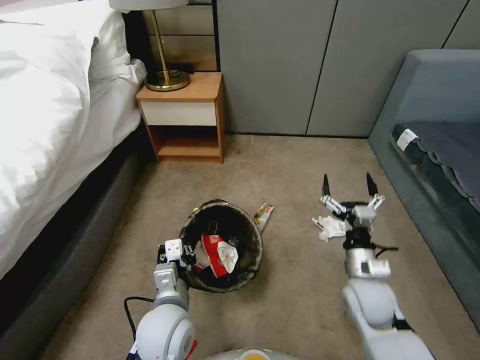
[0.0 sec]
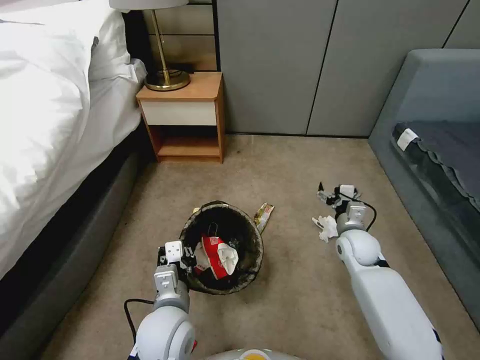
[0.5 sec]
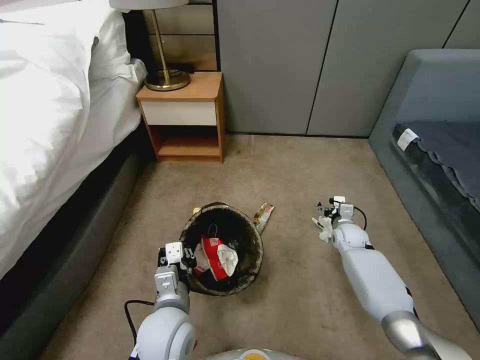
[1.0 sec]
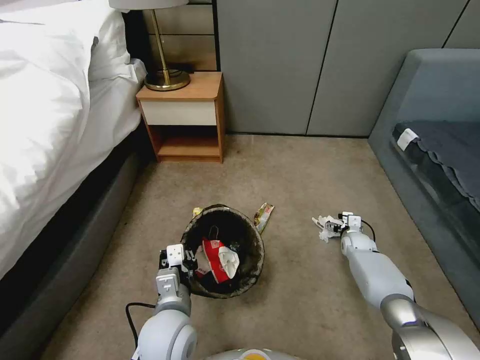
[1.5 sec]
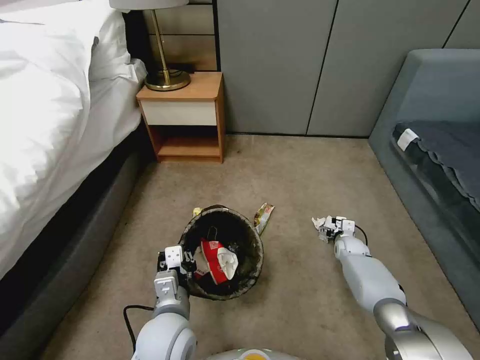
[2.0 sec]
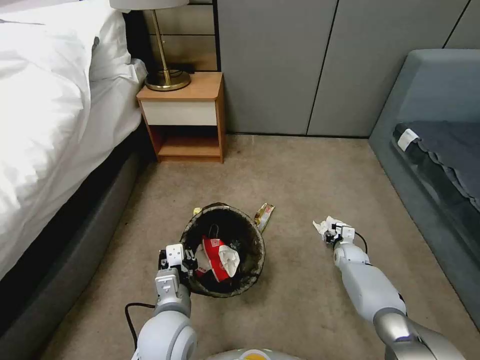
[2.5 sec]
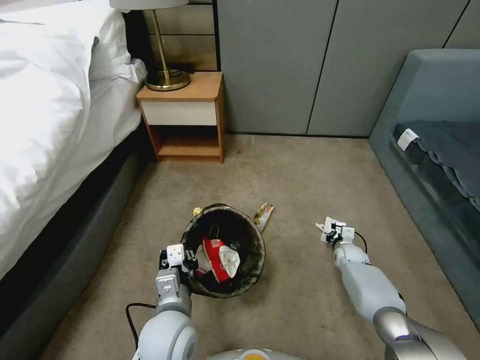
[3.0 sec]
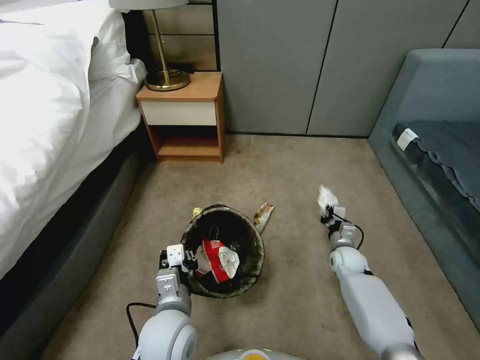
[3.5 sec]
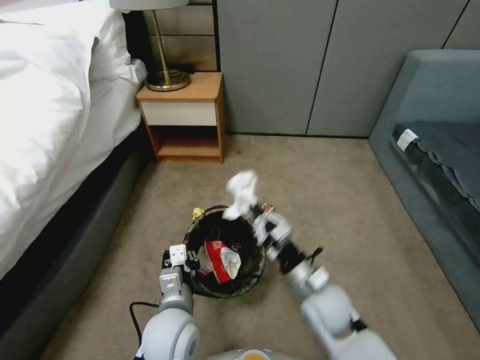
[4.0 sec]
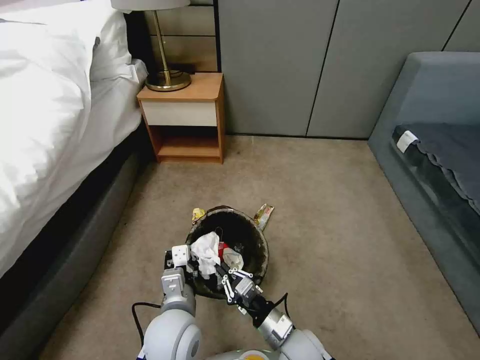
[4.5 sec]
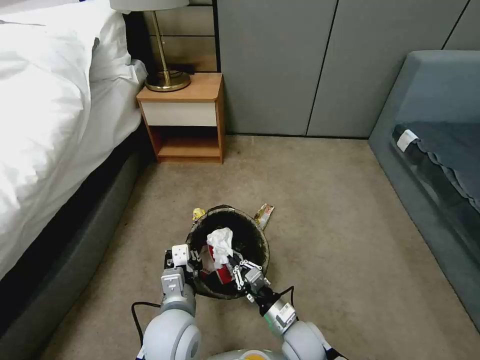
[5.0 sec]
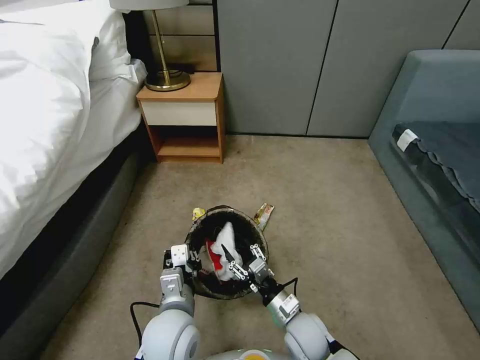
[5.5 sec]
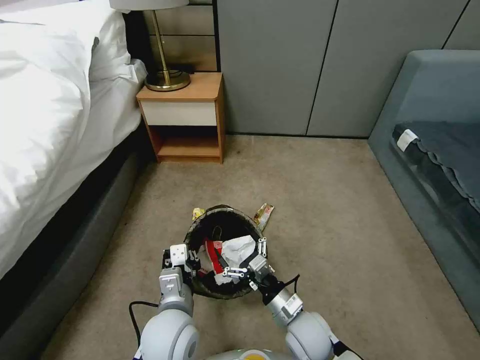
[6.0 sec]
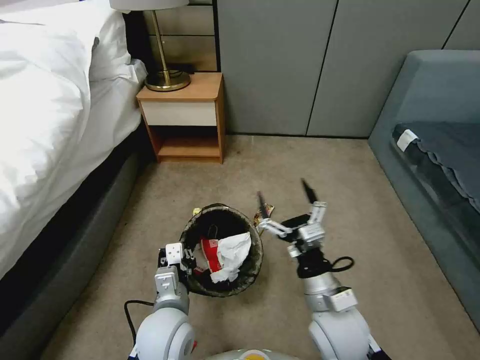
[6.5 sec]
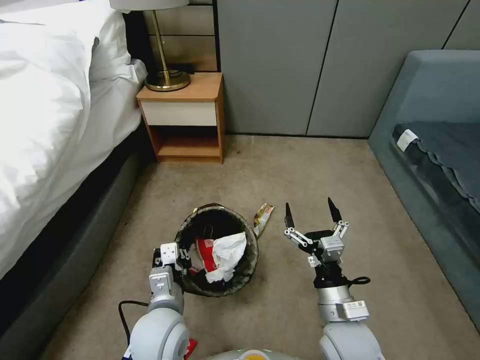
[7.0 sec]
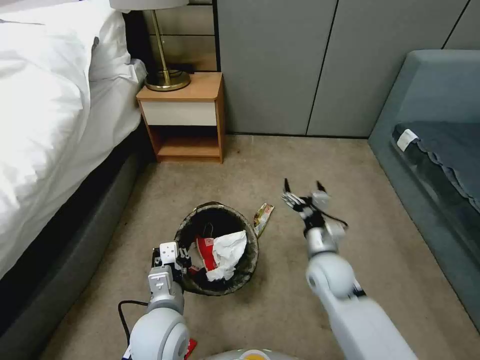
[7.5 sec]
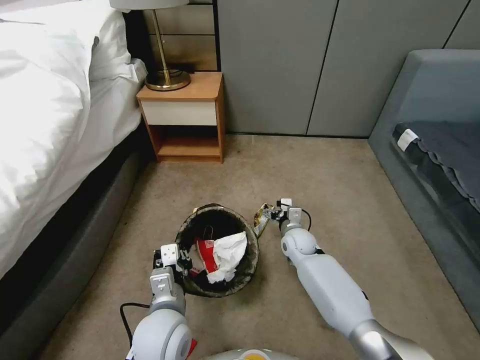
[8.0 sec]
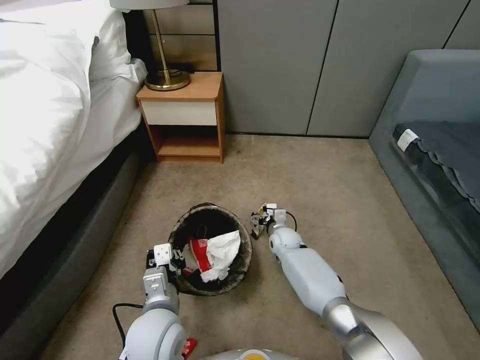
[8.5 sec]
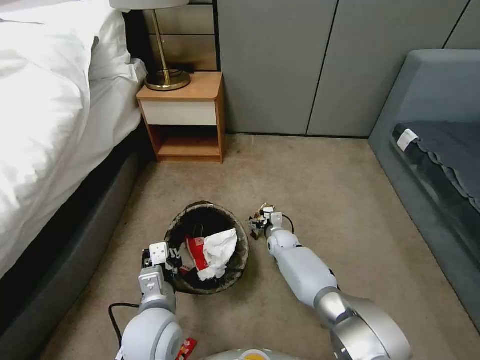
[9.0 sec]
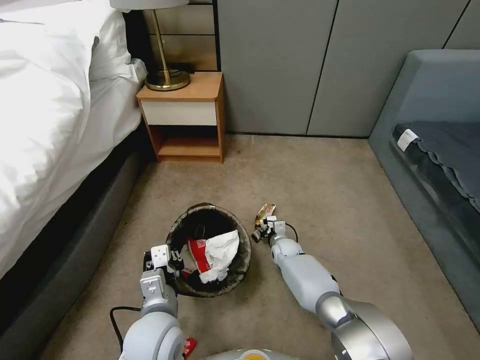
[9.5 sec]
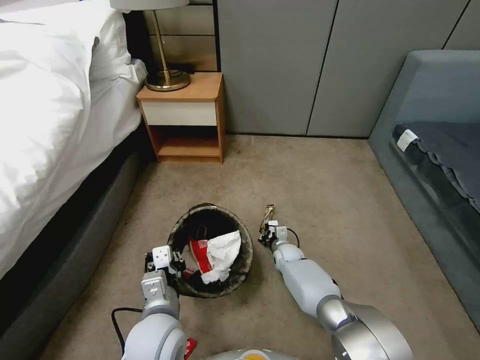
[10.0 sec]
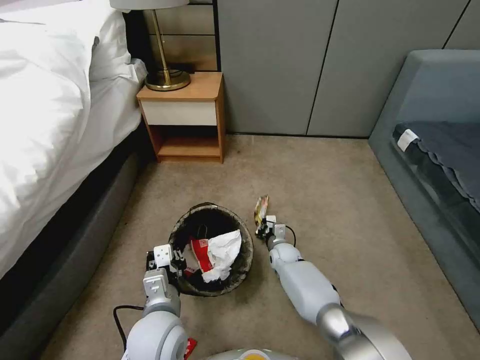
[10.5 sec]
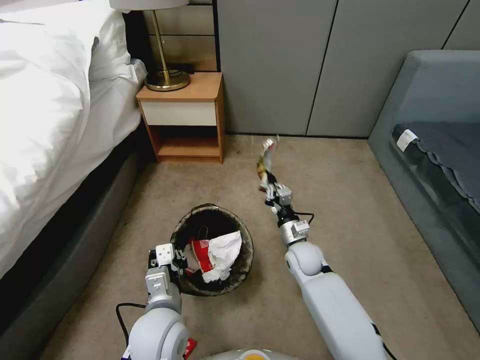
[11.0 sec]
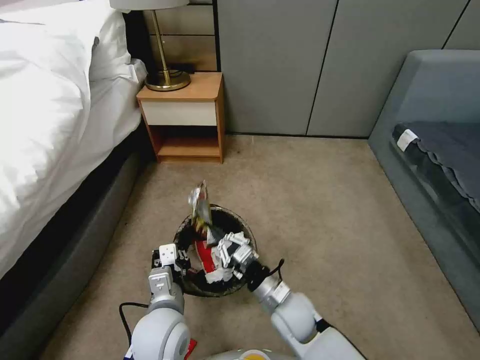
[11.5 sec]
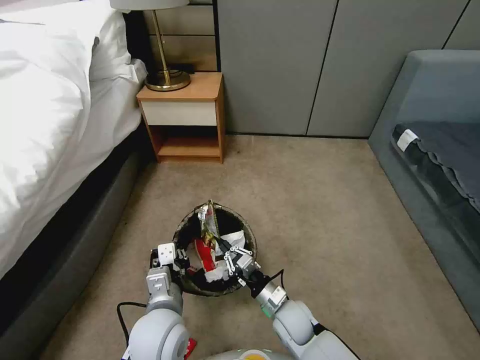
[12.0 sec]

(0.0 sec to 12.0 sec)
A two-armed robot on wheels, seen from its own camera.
Task of the whole recording: Pick up the trash bin, then pick up the garbage from the floor and place it into the trash bin.
0.0 sec - 2.0 sec: The right gripper moves forward, downward and to the right, roughly 25 cm.
2.0 sec - 4.0 sec: The right gripper heads backward, to the left and upward, covering approximately 30 cm, and closes its fingers.
4.0 sec - 6.0 sec: The right gripper moves downward, about 5 cm, and opens.
6.0 sec - 8.0 sec: The right gripper shifts some 25 cm forward.
8.0 sec - 10.0 sec: The right gripper goes some 10 cm downward, and closes.
10.0 sec - 12.0 sec: The right gripper goes approximately 20 cm backward.

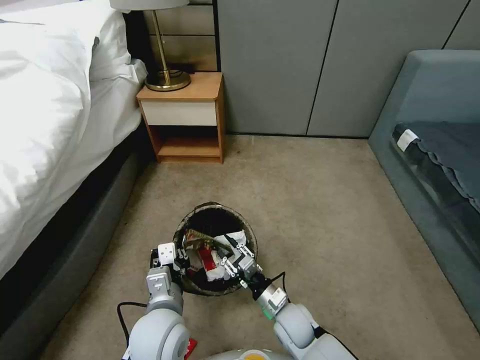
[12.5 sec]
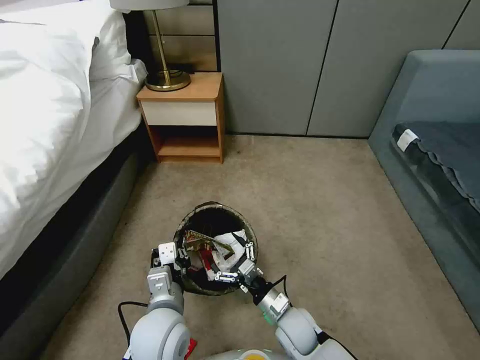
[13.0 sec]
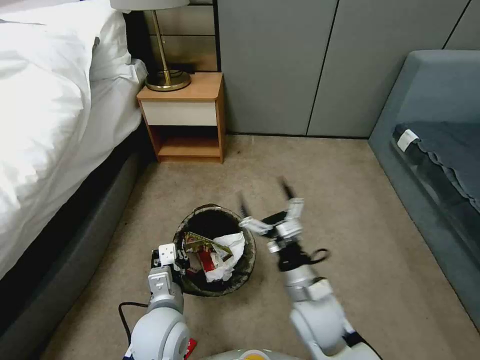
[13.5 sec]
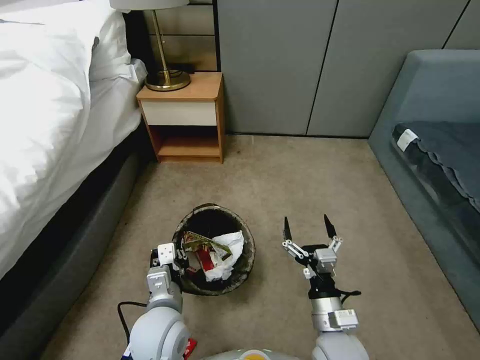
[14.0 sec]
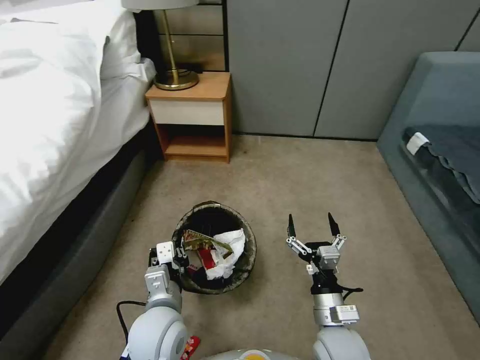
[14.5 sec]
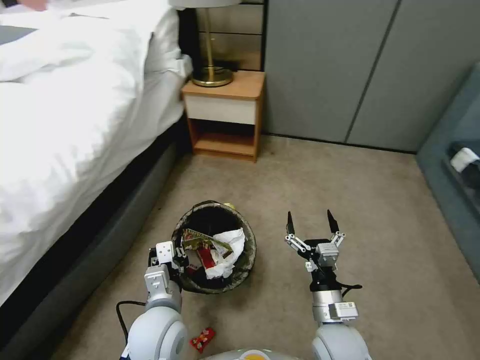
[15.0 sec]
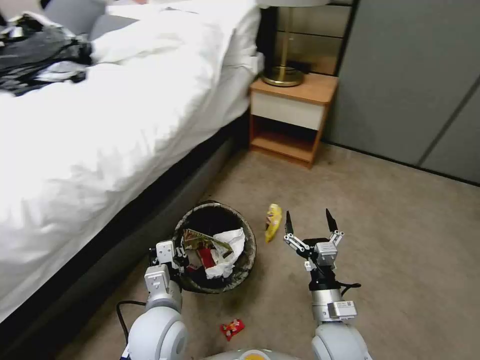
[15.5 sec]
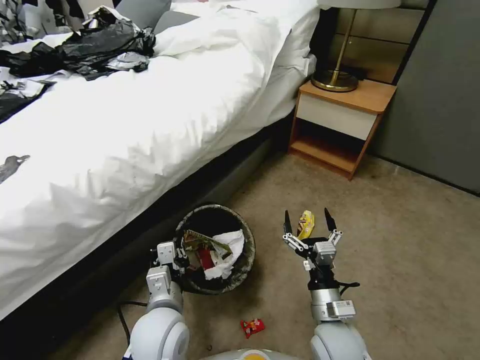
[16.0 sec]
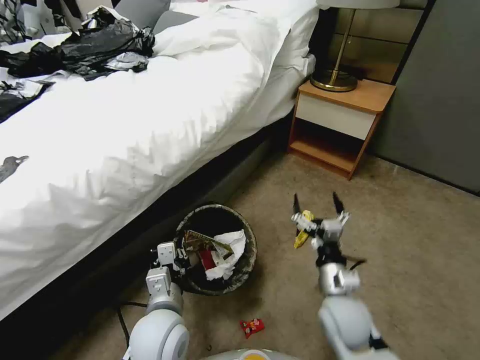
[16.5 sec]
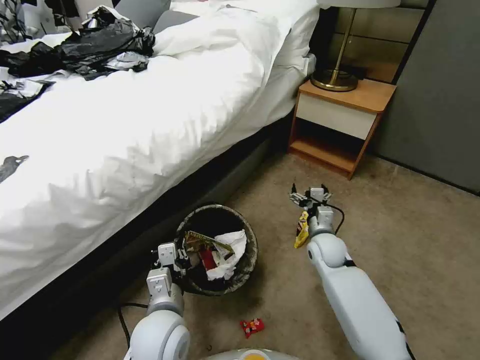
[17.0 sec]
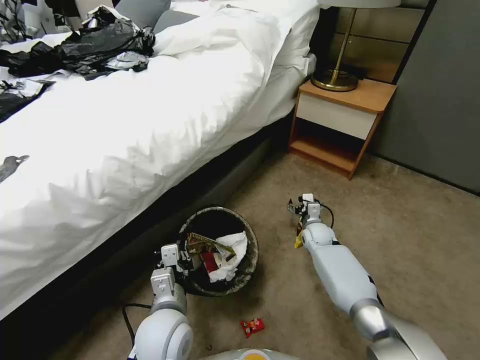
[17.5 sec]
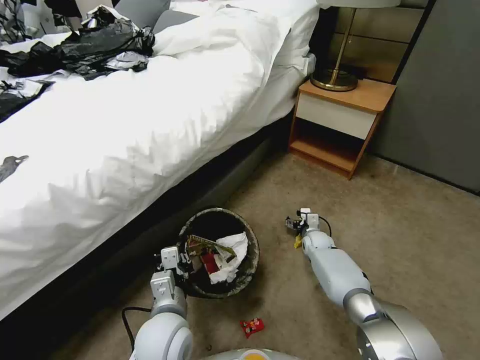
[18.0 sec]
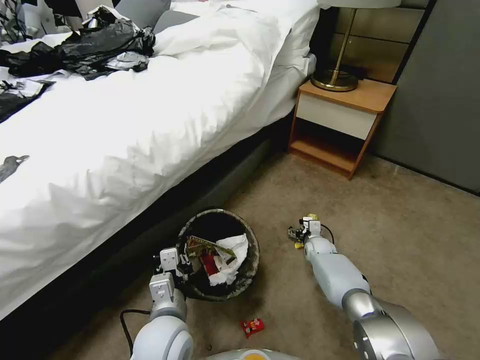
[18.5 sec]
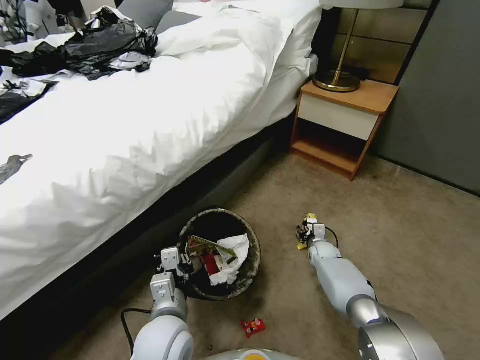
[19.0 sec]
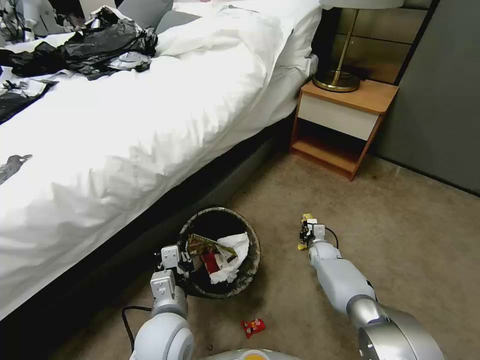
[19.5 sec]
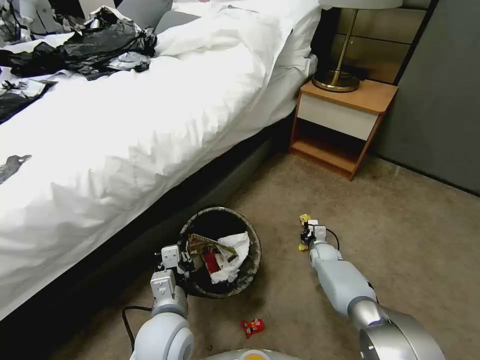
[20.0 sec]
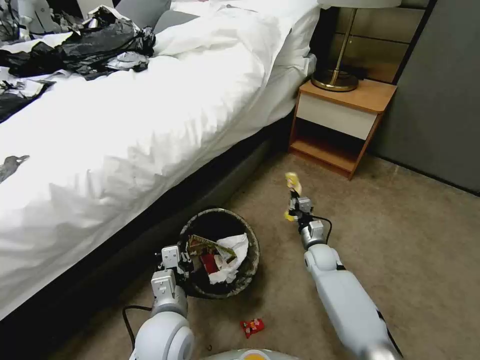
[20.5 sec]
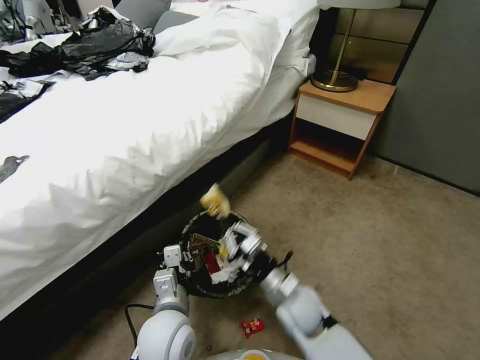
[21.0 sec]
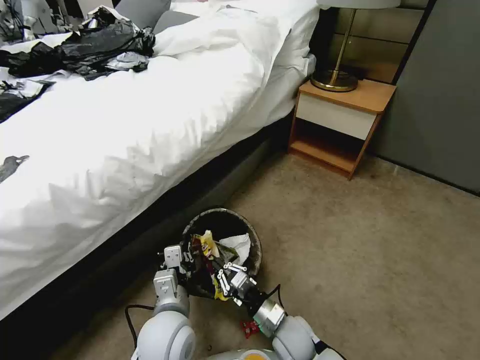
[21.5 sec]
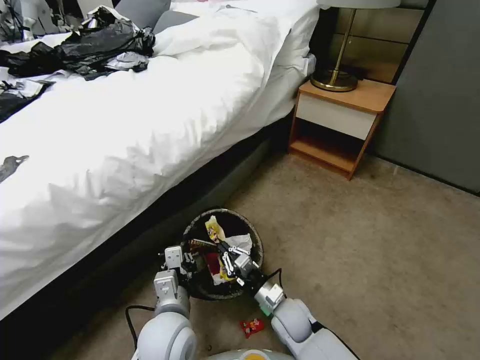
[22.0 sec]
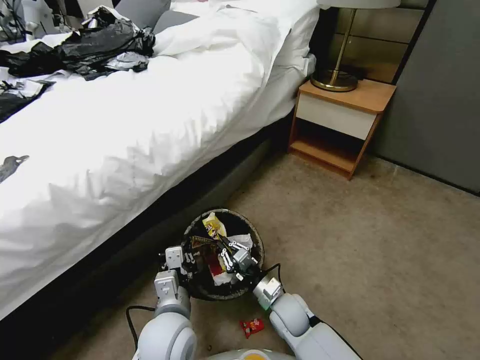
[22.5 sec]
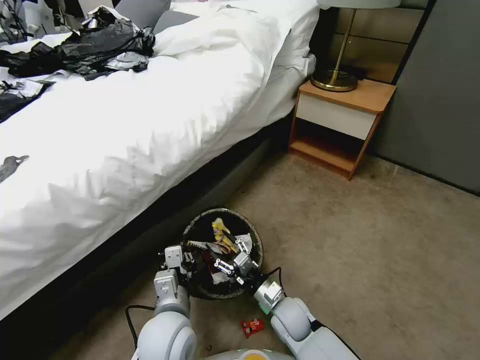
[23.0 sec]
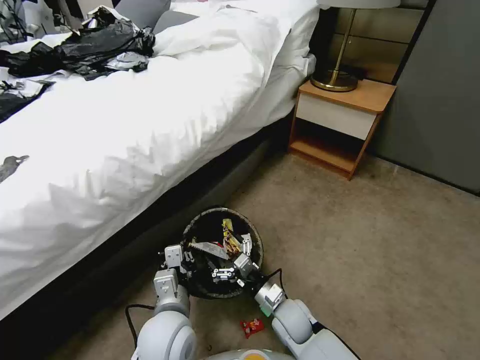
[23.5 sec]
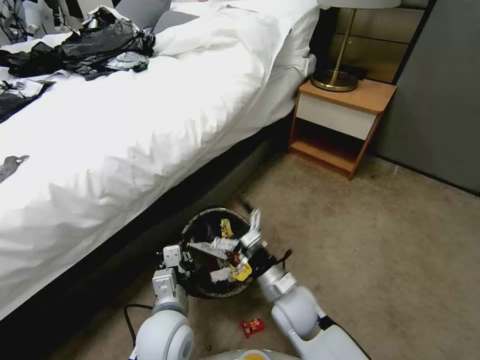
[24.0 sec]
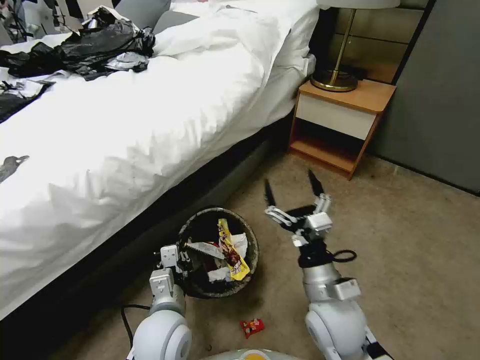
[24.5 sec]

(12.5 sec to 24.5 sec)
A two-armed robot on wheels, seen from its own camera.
Task of the whole recording: Pick up the trash bin, then pick up the garbage from the floor and place it into the trash bin.
12.5 sec - 14.5 sec: The right gripper heads upward, to the right and backward, covering roughly 15 cm, and opens.
14.5 sec - 16.5 sec: The right gripper moves forward, approximately 5 cm.
16.5 sec - 18.5 sec: The right gripper shifts some 30 cm forward and downward.
18.5 sec - 20.5 sec: The right gripper goes about 5 cm backward and upward, and closes.
20.5 sec - 22.5 sec: The right gripper goes some 20 cm backward and to the left.
22.5 sec - 24.5 sec: The right gripper is displaced upward by some 20 cm, and opens up.

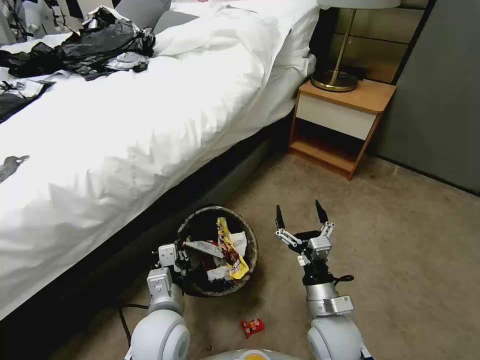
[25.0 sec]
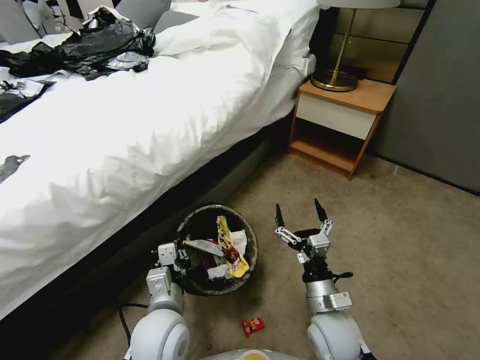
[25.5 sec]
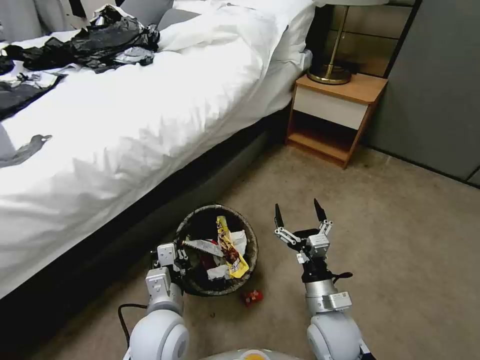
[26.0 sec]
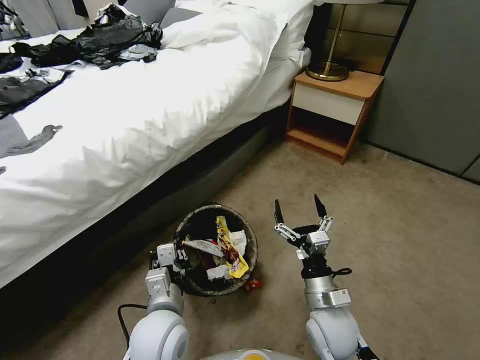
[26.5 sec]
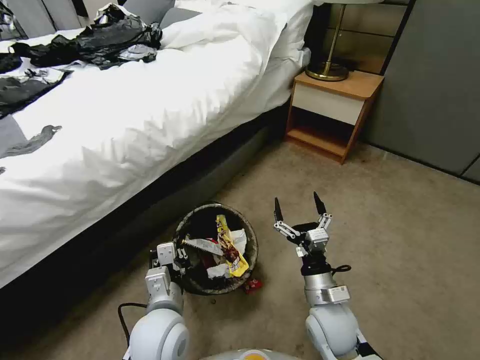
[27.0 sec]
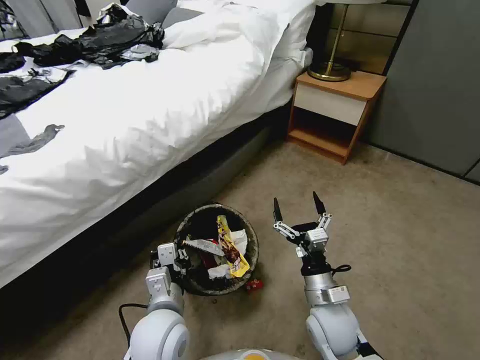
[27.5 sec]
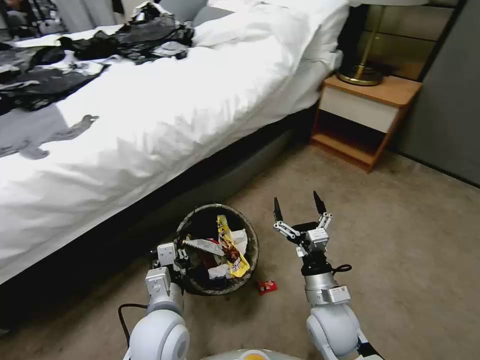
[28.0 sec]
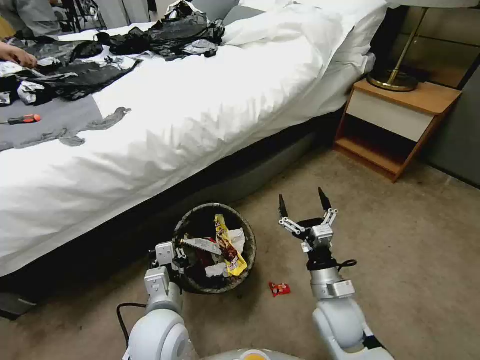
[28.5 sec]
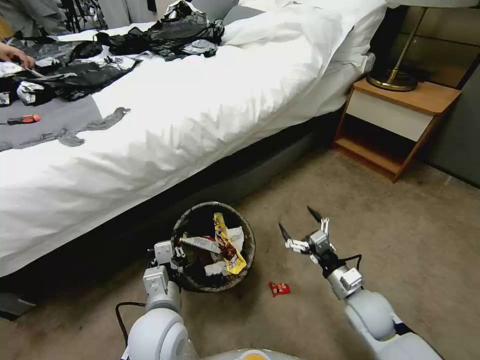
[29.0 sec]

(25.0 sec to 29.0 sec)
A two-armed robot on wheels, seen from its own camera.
Task of the whole recording: Pick up the trash bin, then pick up the garbage from the floor and place it into the trash bin.
27.0 sec - 29.0 sec: The right gripper goes some 10 cm to the right.
